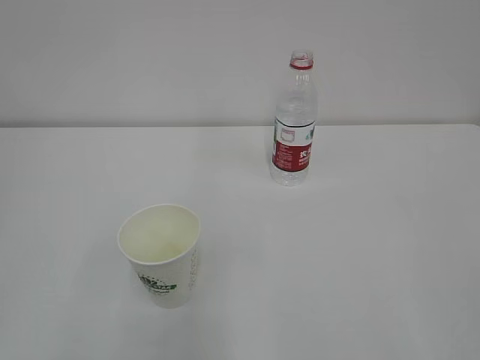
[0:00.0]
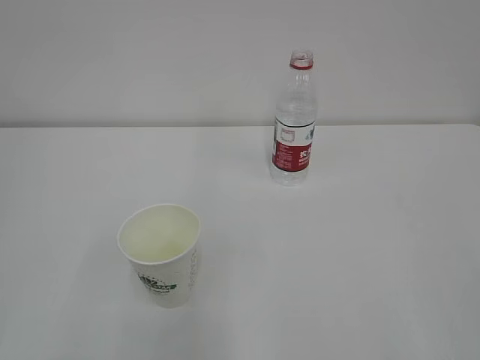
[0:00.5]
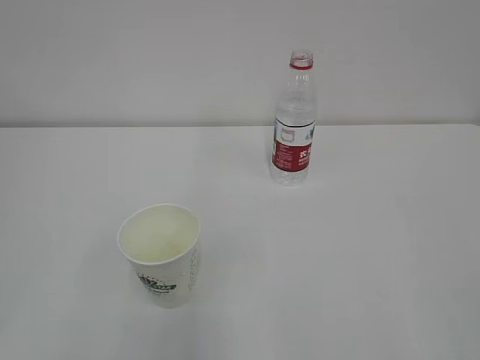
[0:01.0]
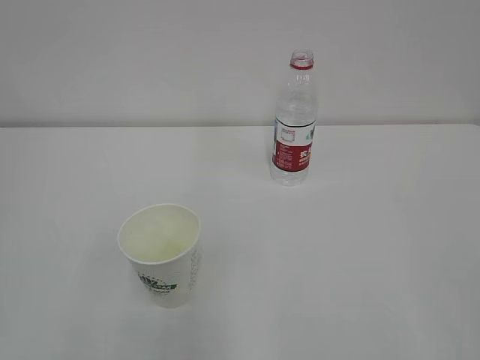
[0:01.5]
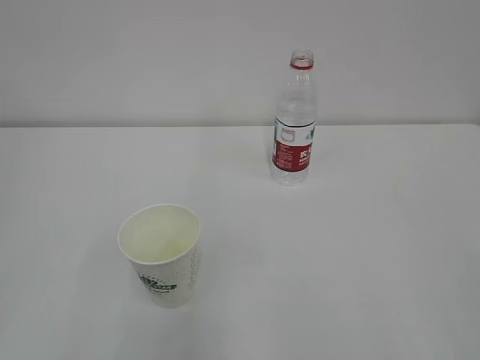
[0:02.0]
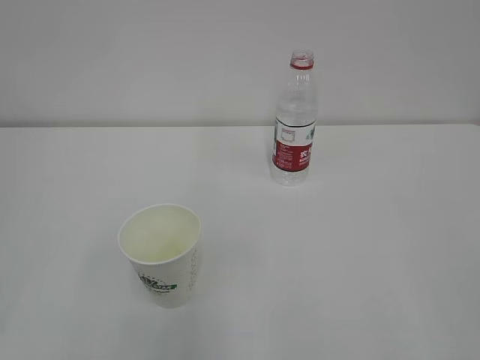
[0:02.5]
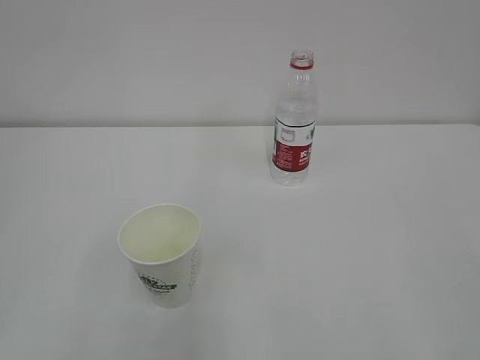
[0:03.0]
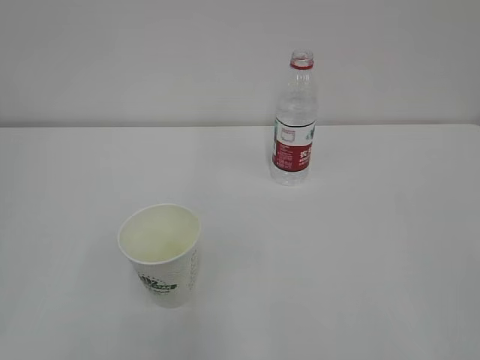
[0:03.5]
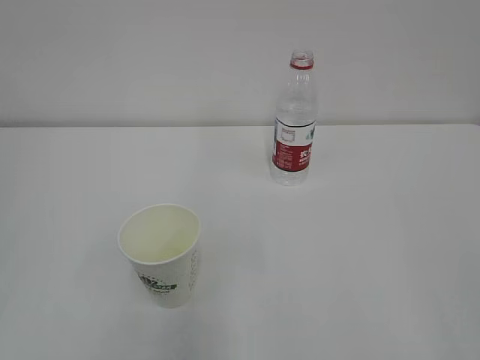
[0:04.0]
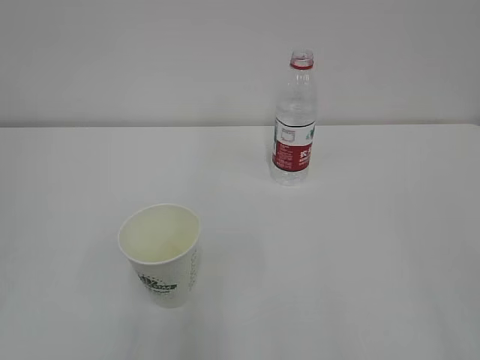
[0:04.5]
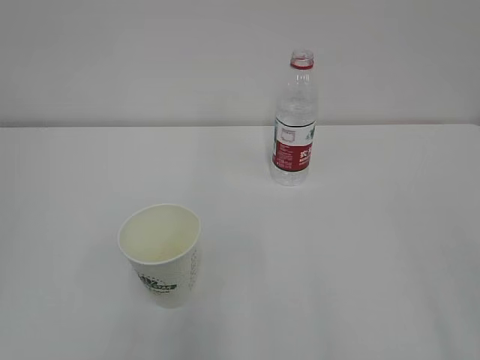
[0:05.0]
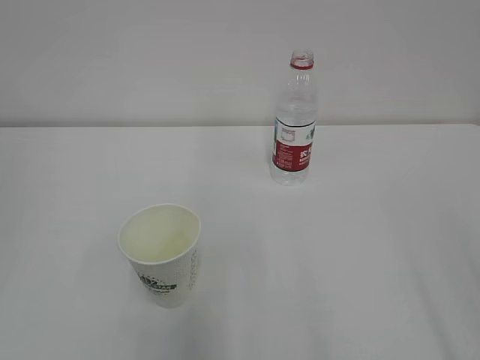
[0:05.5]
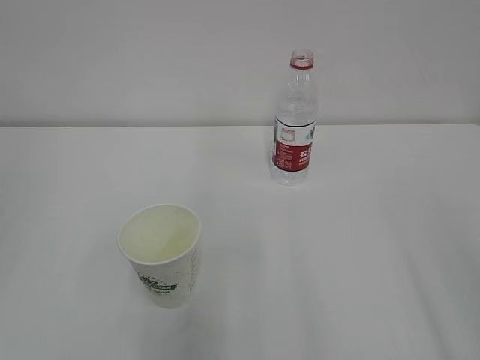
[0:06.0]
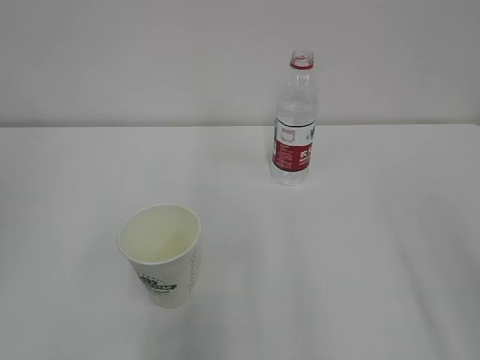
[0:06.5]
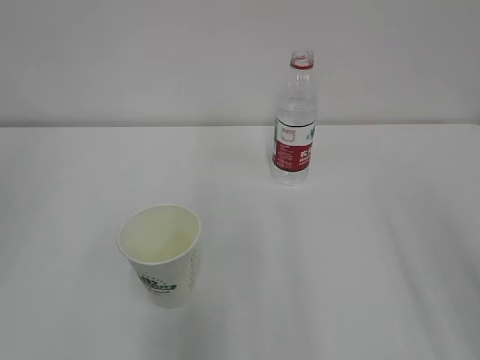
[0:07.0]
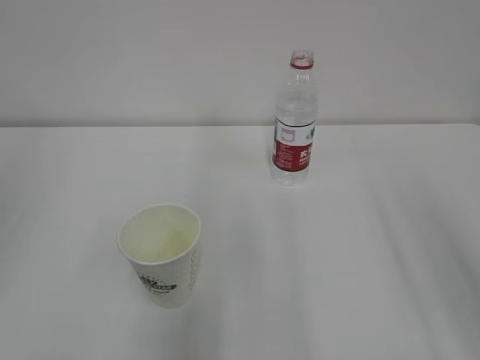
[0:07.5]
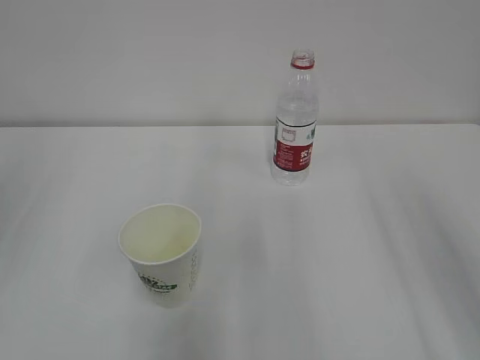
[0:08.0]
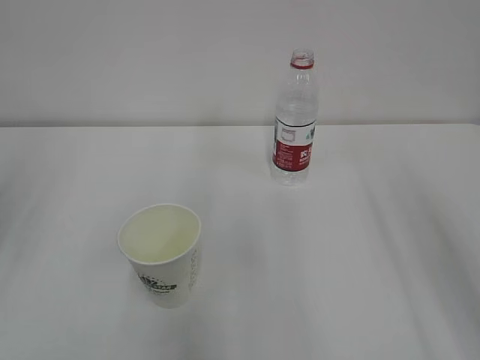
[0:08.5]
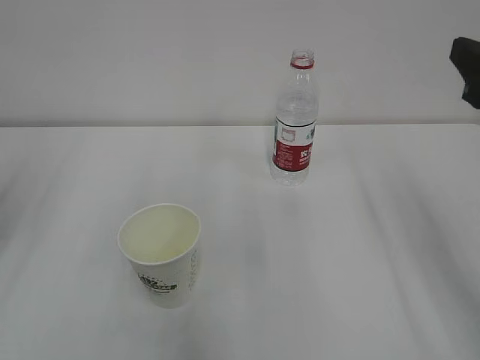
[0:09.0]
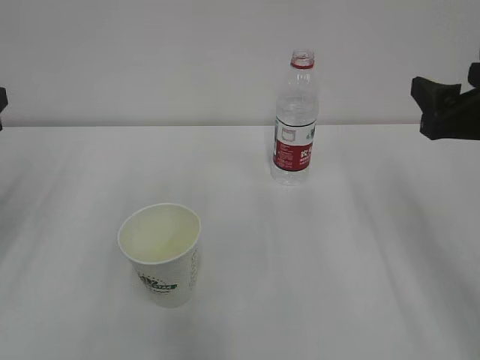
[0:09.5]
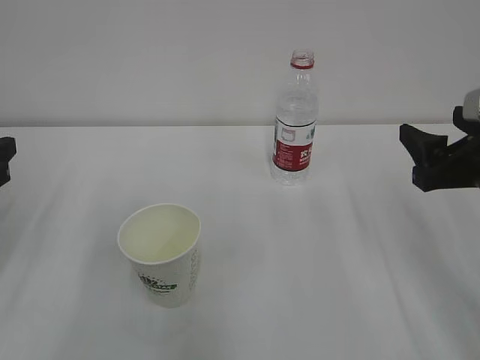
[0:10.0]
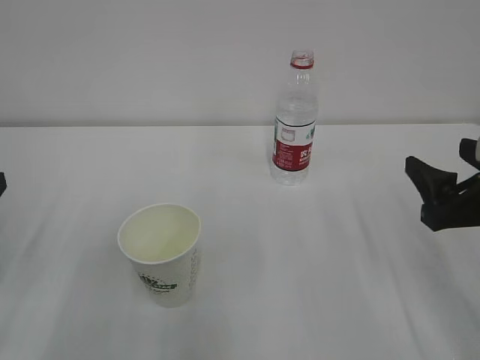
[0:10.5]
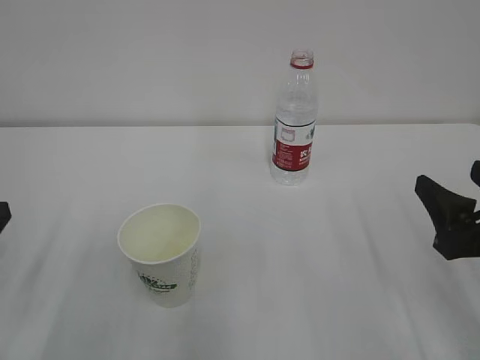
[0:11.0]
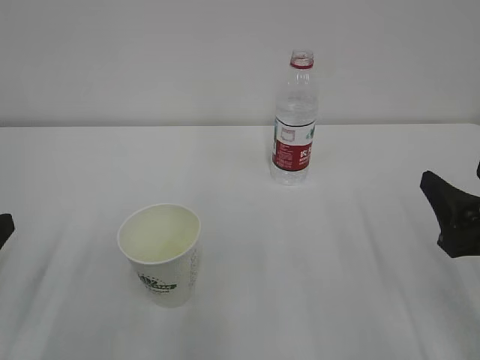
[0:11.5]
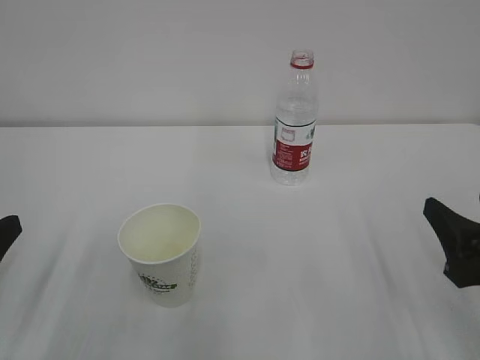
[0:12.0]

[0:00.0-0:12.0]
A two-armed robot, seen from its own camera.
0:08.0 to 0:10.0: The right gripper travels downward and forward by about 10 cm.
0:10.0 to 0:12.0: The two grippers go approximately 10 cm backward.

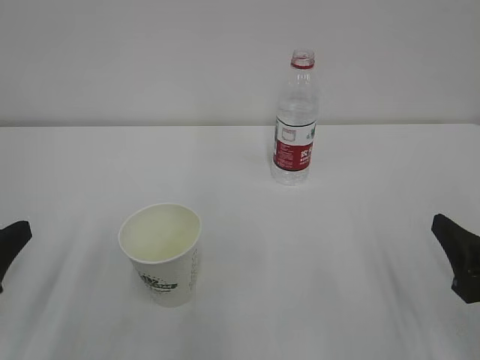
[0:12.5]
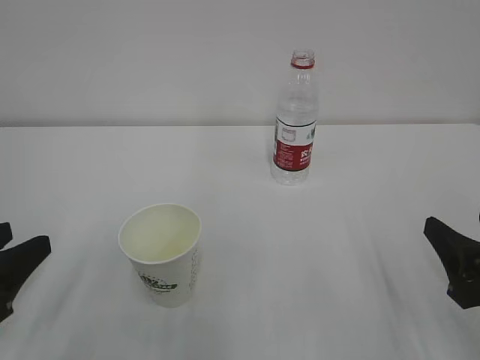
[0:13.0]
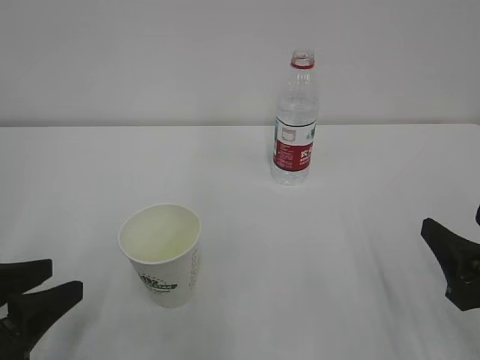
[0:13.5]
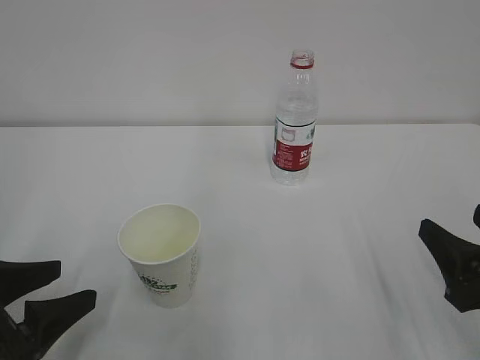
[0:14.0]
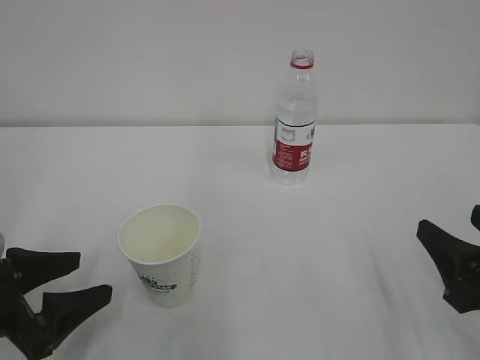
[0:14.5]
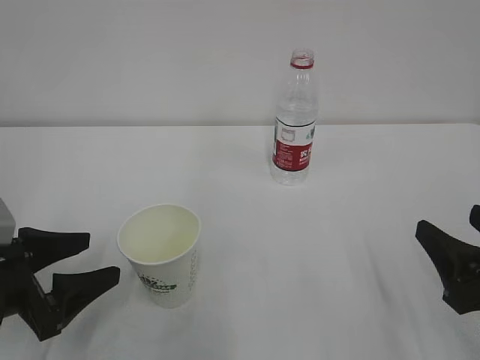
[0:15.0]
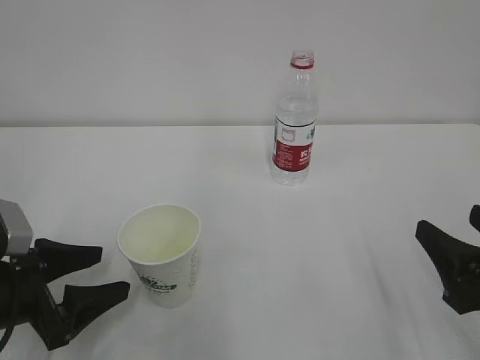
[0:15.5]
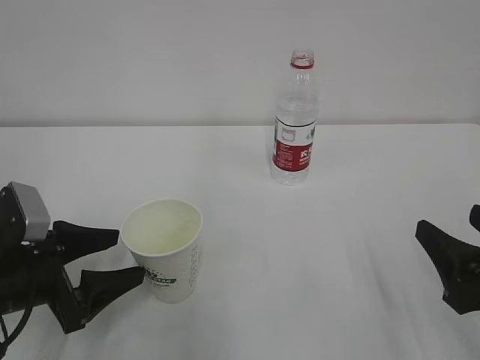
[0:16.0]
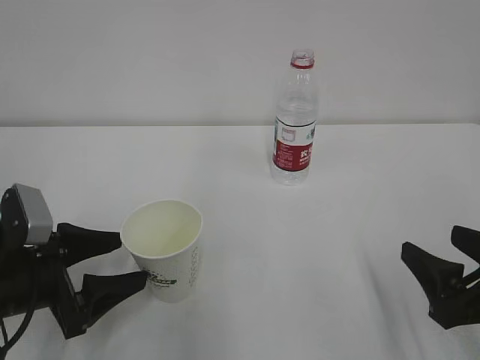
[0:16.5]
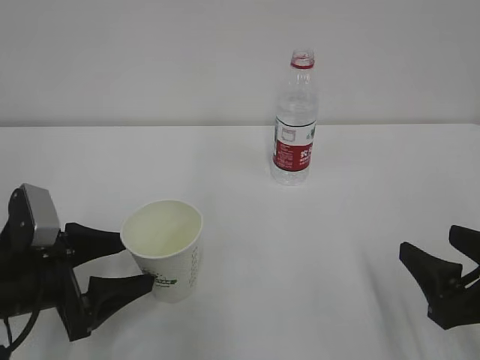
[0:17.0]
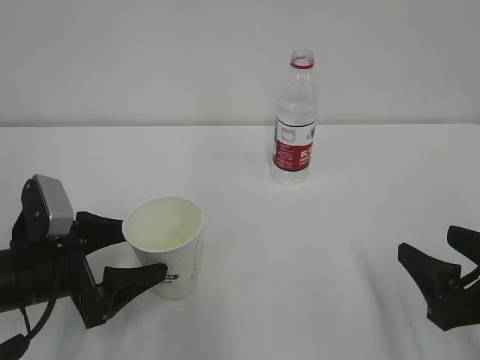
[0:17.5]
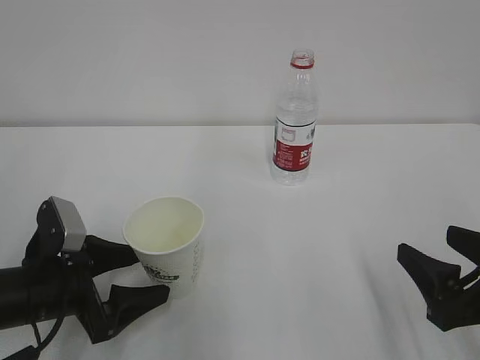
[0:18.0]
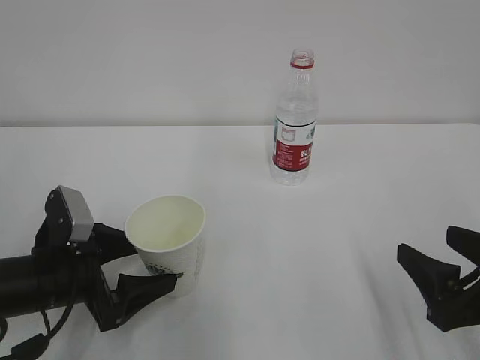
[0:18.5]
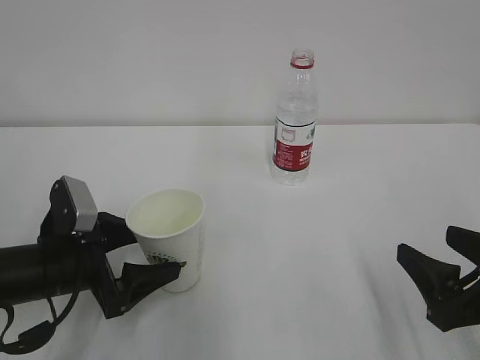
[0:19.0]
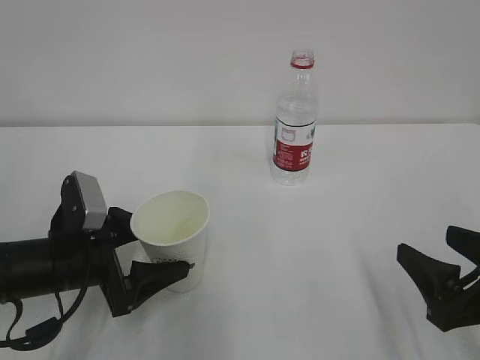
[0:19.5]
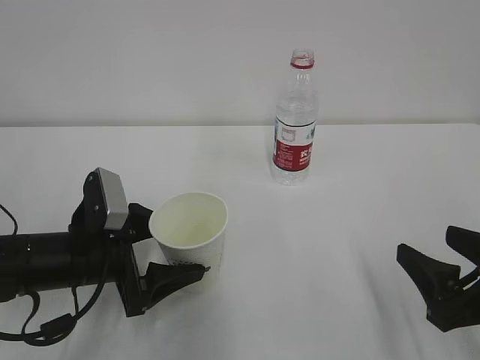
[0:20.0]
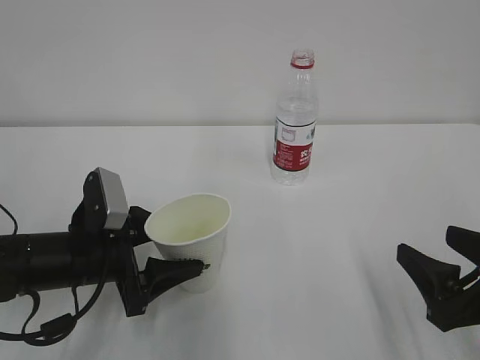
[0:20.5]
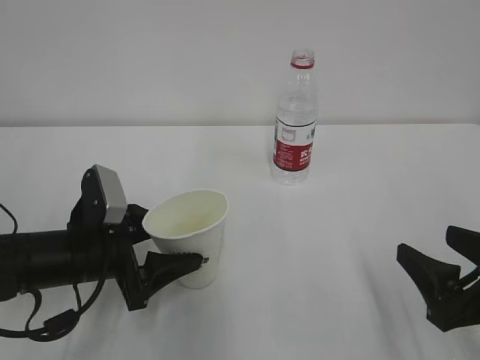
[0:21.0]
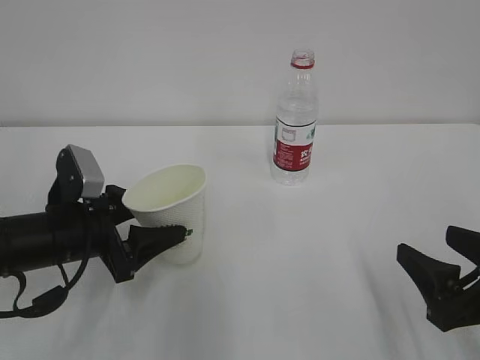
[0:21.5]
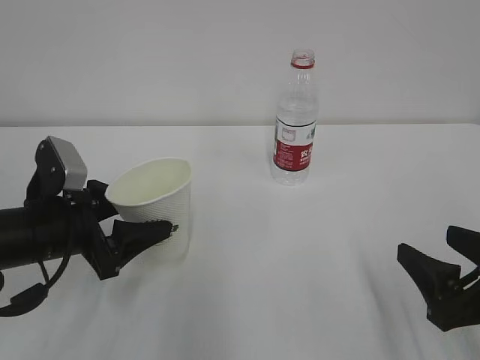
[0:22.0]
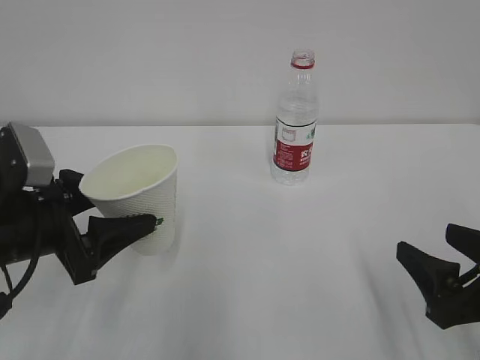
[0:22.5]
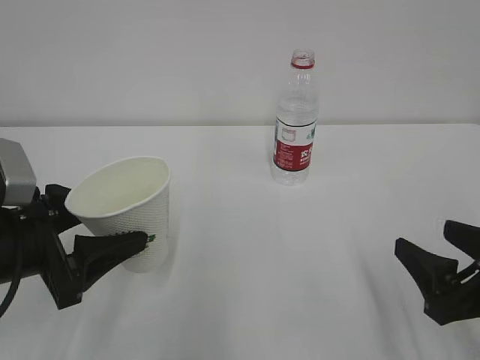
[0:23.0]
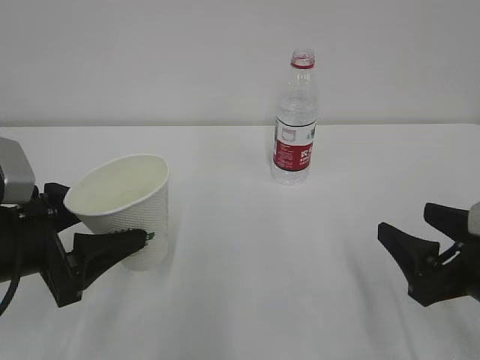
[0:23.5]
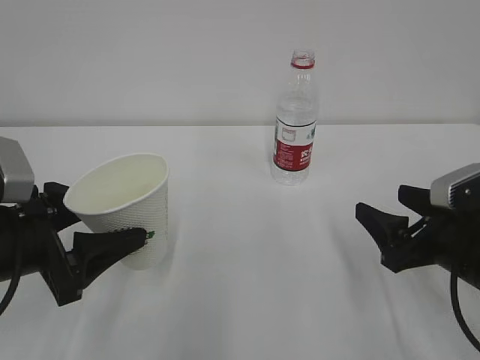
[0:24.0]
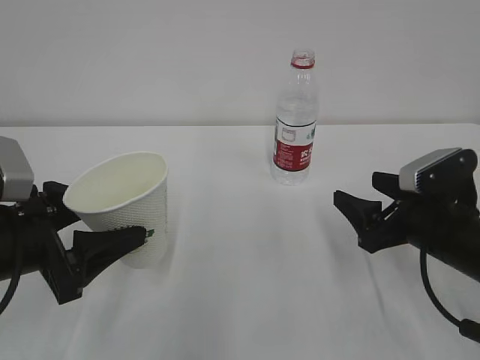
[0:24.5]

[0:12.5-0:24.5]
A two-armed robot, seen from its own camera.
0:12.5 to 0:14.5: The left gripper moves approximately 5 cm, and opens up.
0:14.5 to 0:16.5: The grippers move only a little.
0:16.5 to 0:18.5: The grippers make only small movements.
0:18.5 to 0:20.5: The left gripper closes its fingers.
0:20.5 to 0:22.5: The left gripper goes some 5 cm upward.
0:22.5 to 0:24.5: The right gripper is displaced forward by some 10 cm.

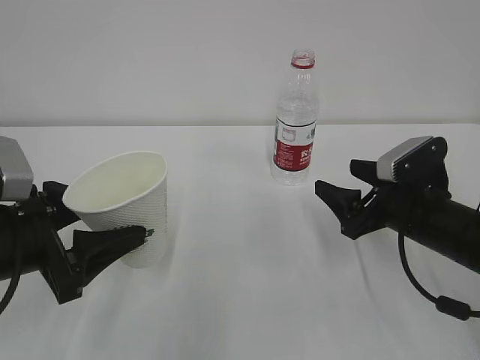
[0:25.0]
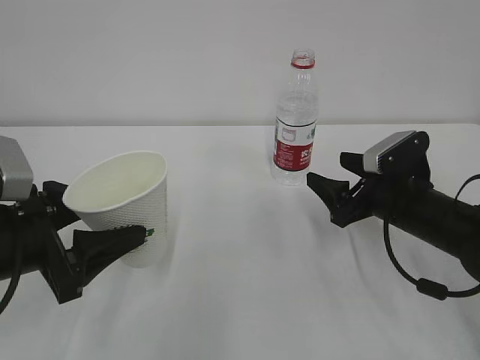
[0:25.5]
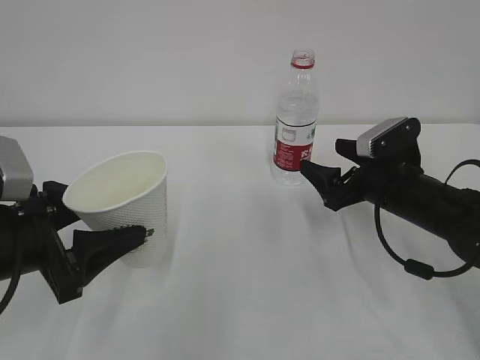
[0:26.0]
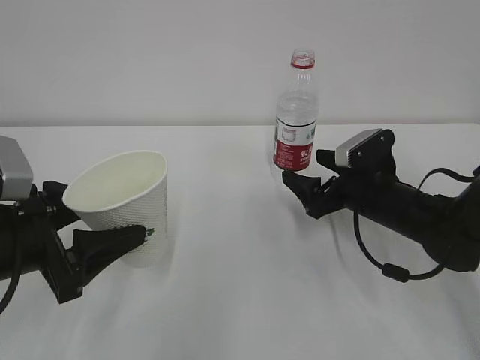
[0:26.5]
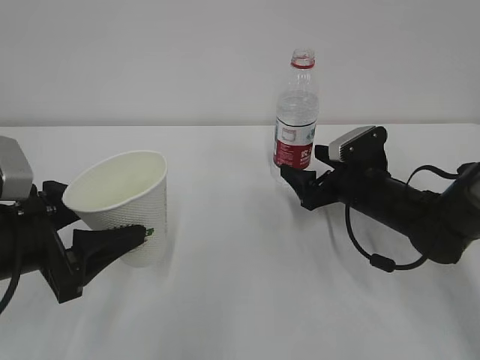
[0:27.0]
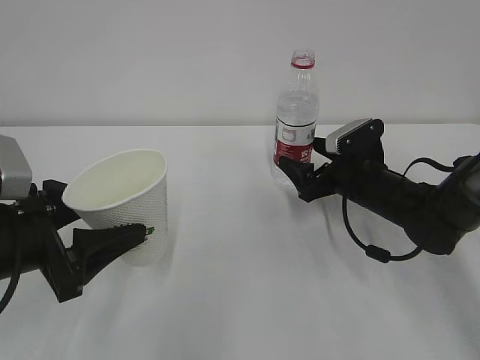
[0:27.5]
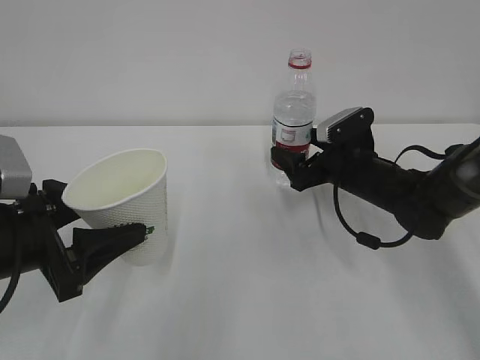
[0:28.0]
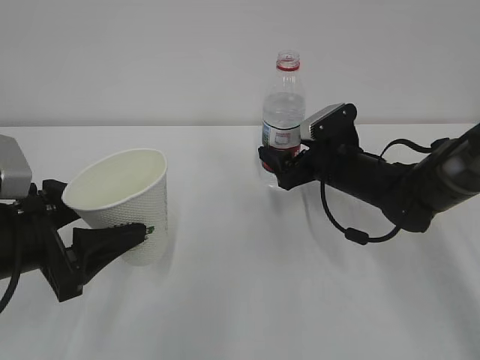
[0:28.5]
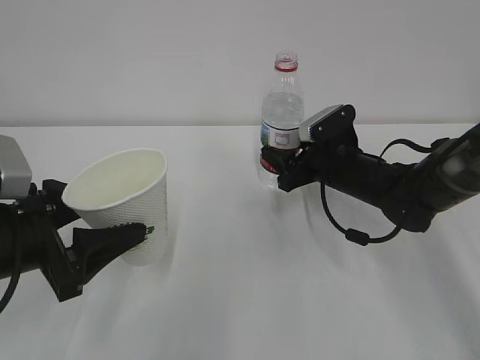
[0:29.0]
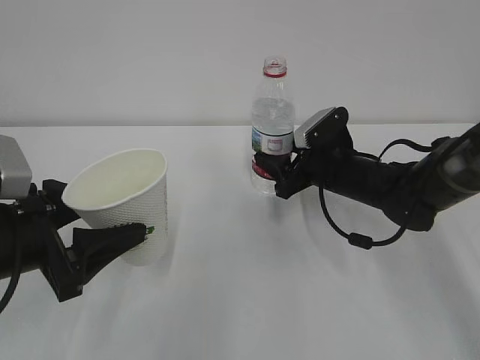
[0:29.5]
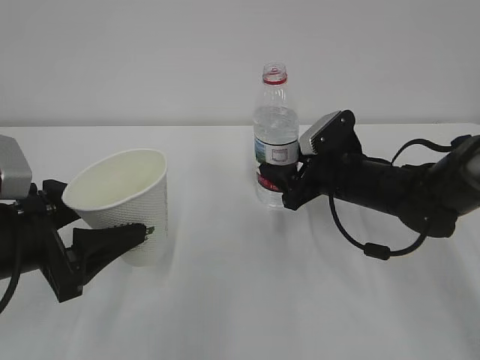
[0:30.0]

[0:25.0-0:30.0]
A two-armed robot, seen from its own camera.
0:25.0 to 0:27.5: The right gripper goes approximately 10 cm forward.
0:27.5 to 0:30.0: The right gripper closes up.
